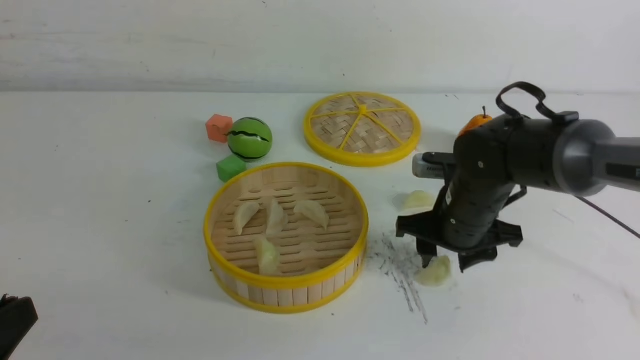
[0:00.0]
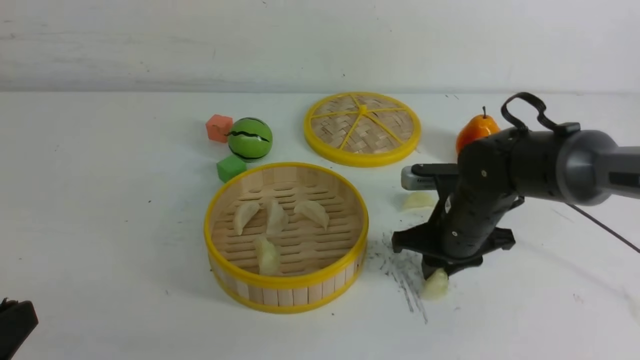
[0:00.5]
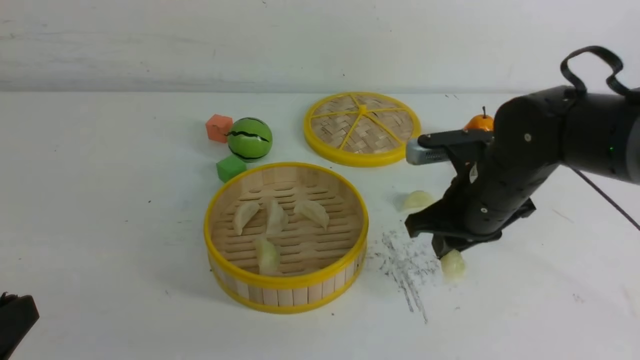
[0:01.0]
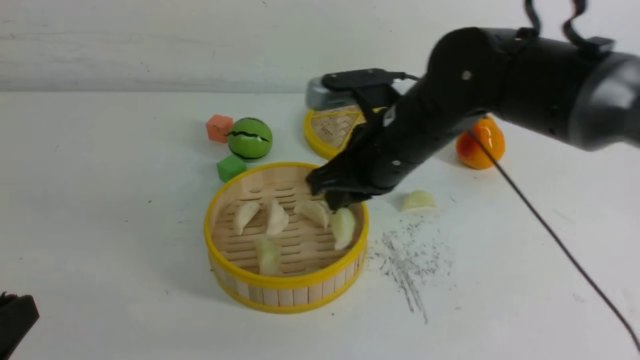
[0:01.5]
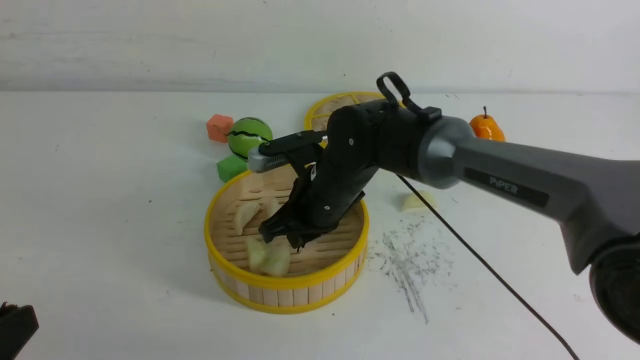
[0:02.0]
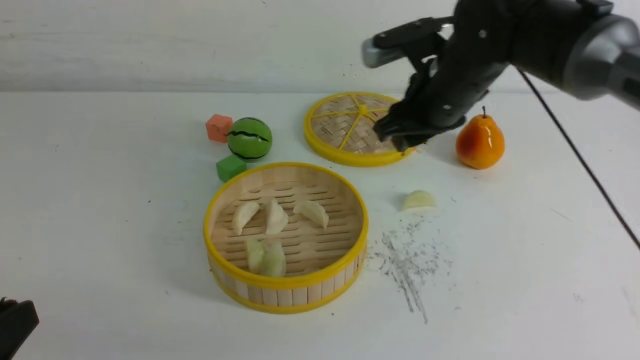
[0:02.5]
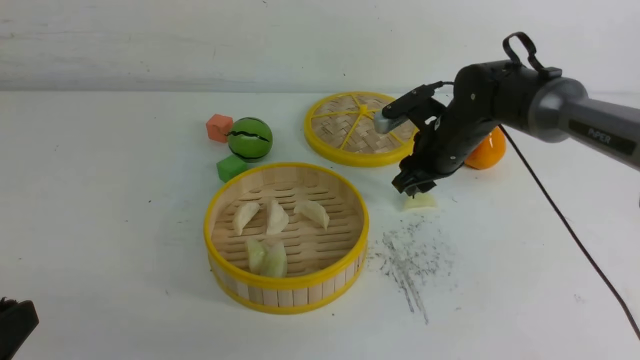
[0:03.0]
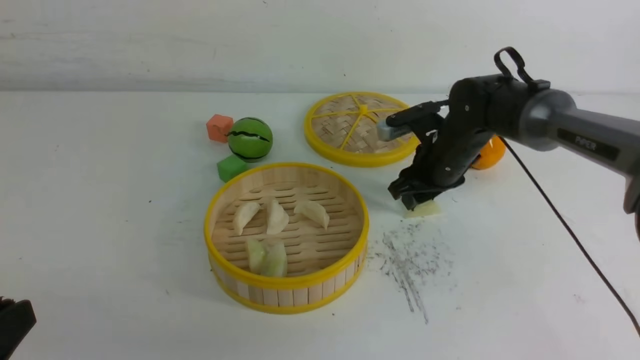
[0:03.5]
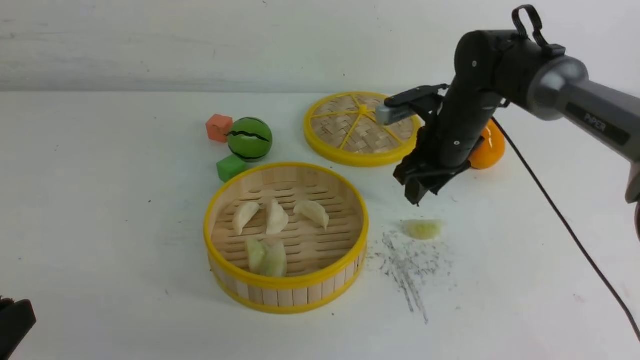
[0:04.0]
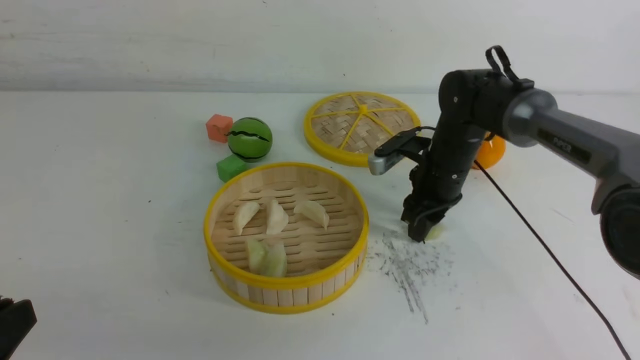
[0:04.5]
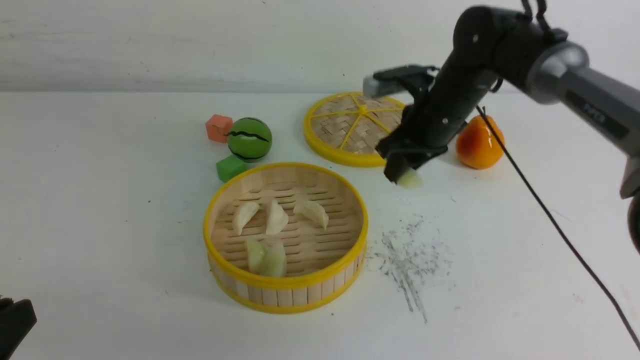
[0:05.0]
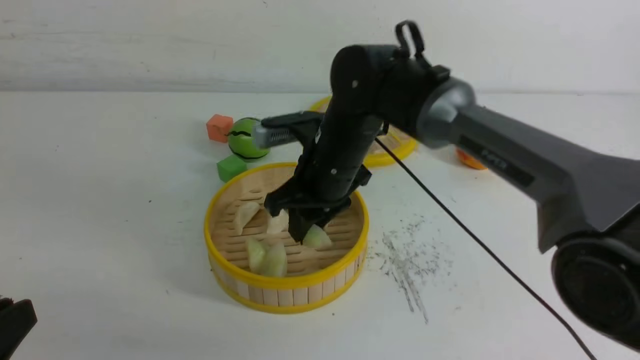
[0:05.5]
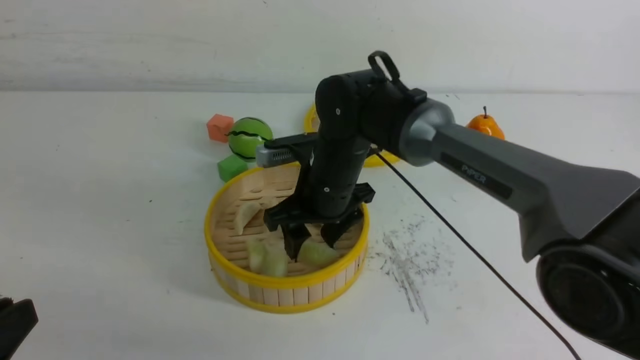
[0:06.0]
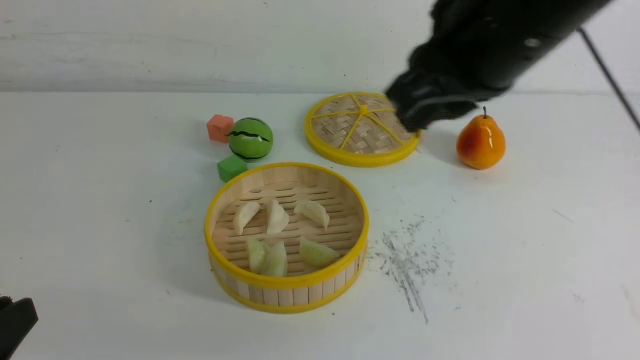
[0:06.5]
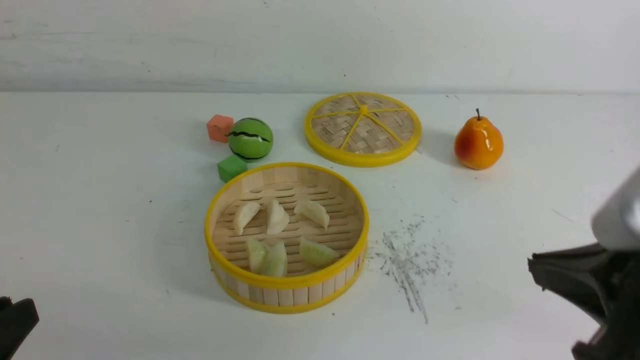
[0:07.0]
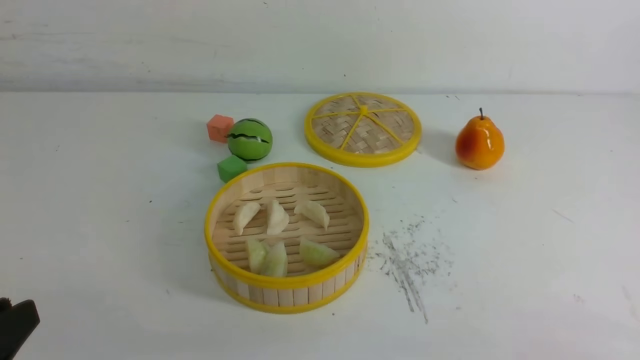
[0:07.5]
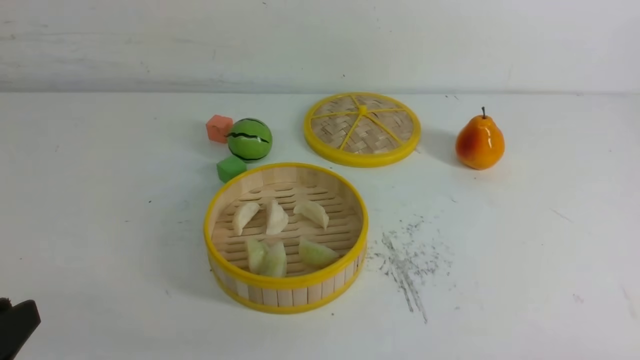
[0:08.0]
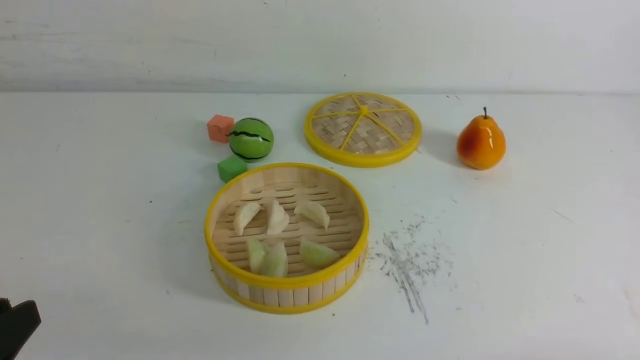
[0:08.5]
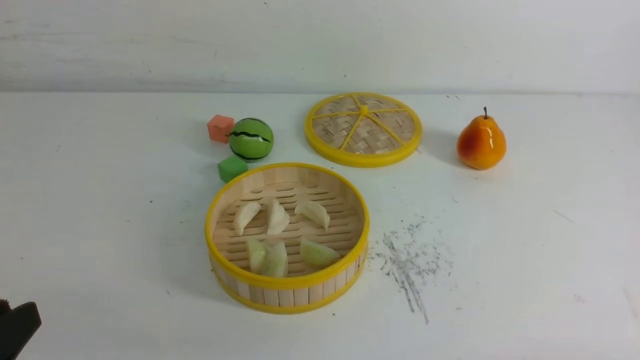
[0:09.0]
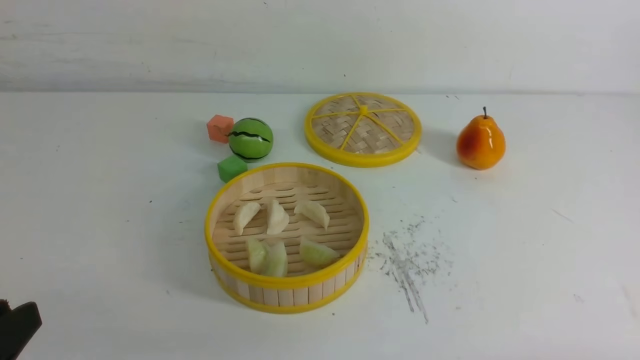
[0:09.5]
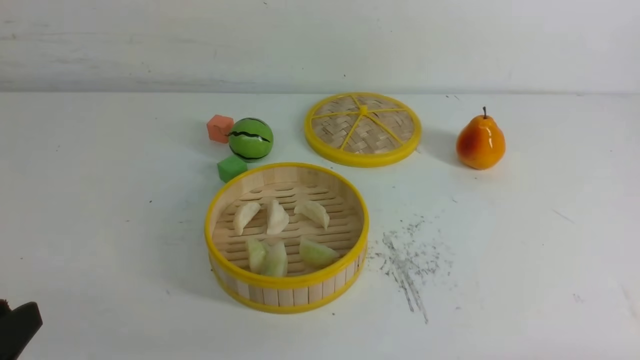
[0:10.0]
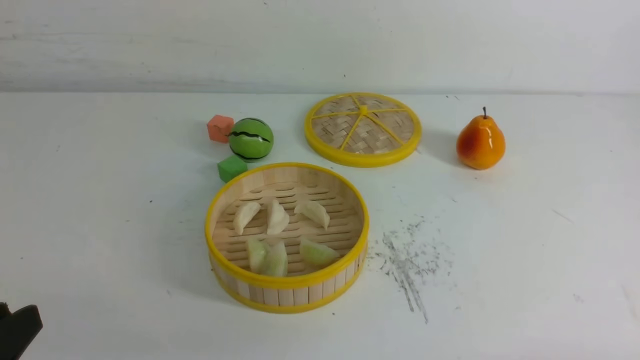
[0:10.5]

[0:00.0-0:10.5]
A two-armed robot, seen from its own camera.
Task of the whole recording: put the dumplings into the steamer on the white table.
Step, 0:01.0 to 0:02.0: use the right arm to put the dumpling into the steamer.
Step, 0:02.5 to 0:04.5: use the right arm to grab a dumpling.
Step, 0:05.0 to 0:06.0: use the right arm to put the dumpling into the steamer.
0:00.0 to 0:02.0: The right gripper shifts about 15 cm to the left, and closes.
0:02.0 to 0:04.0: The right gripper is displaced to the right and forward by some 15 cm, and opens its fingers.
0:04.0 to 0:06.5: The right gripper moves backward and upward, about 30 cm, and closes its fingers.
0:06.5 to 0:08.5: The right gripper is displaced downward, backward and to the right by some 35 cm.
0:08.5 to 0:10.5: Both grippers stay put.

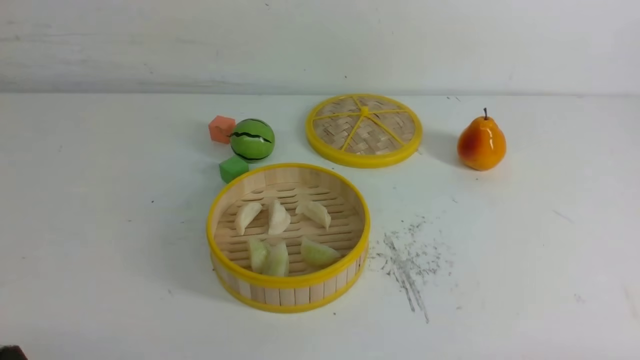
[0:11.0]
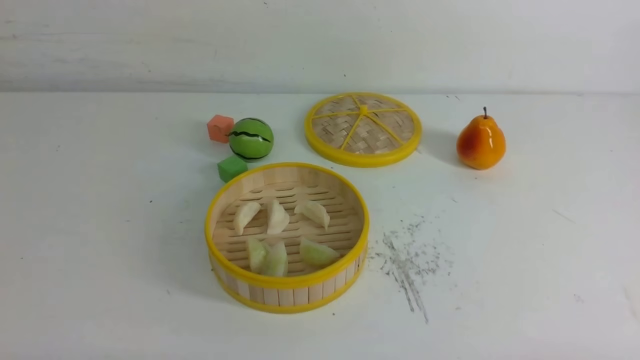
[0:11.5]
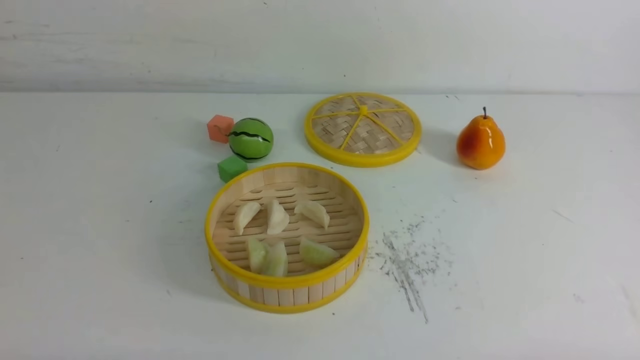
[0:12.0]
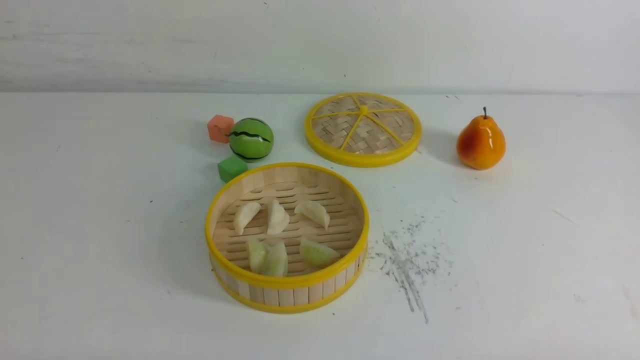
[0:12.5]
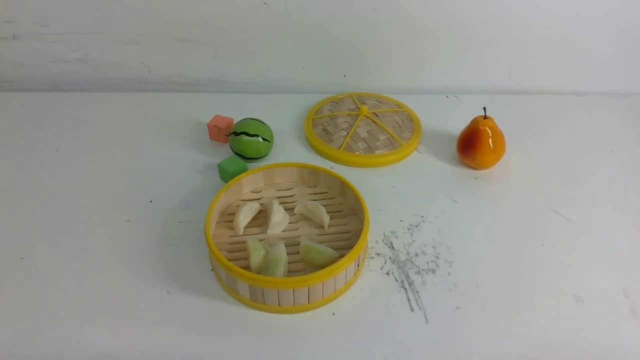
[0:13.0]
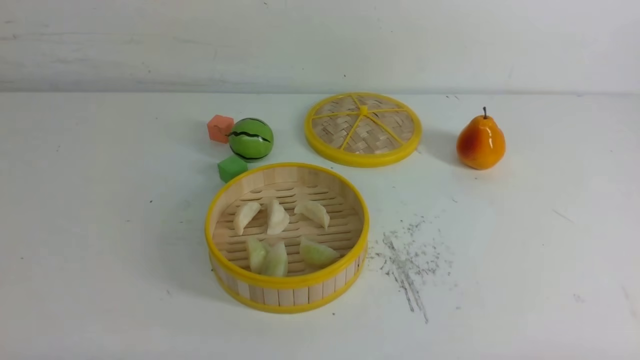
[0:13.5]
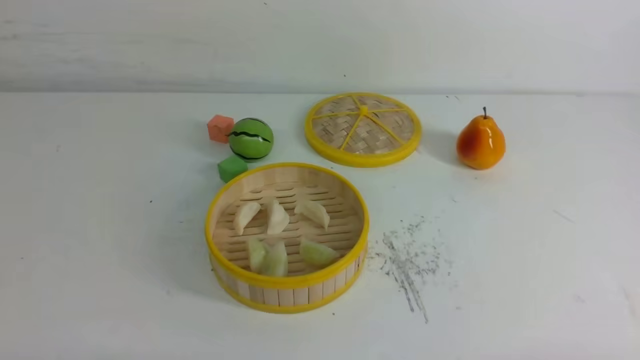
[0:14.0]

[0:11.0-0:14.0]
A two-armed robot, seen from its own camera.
Task of the whole recording: put the dumplings into the steamer on the white table.
0:12.5 to 0:14.0: Neither gripper changes place.
